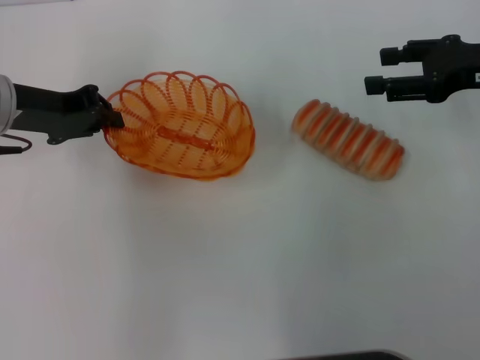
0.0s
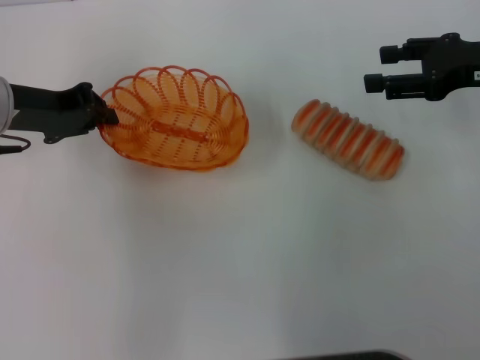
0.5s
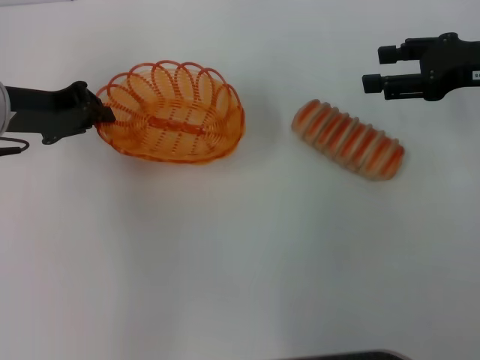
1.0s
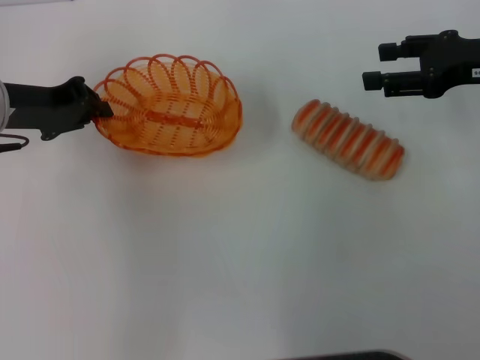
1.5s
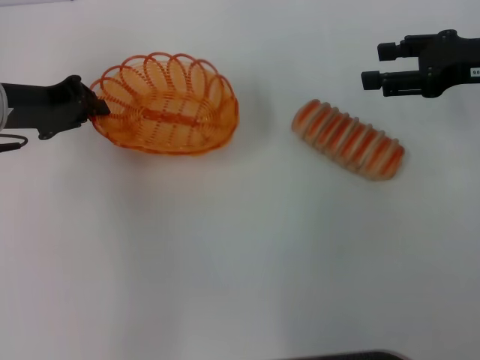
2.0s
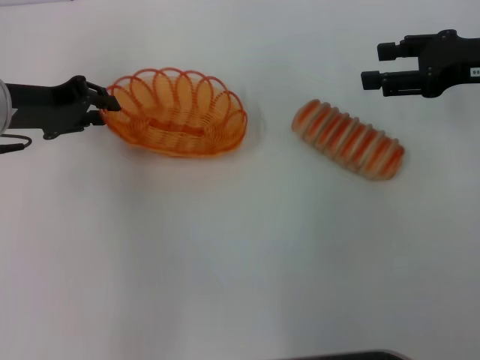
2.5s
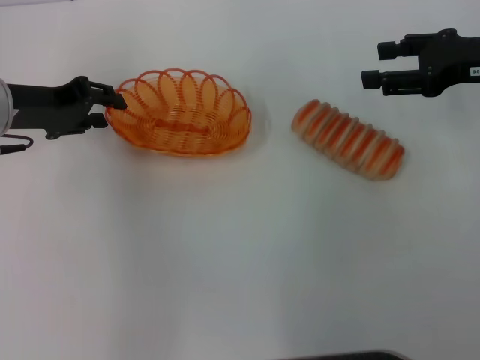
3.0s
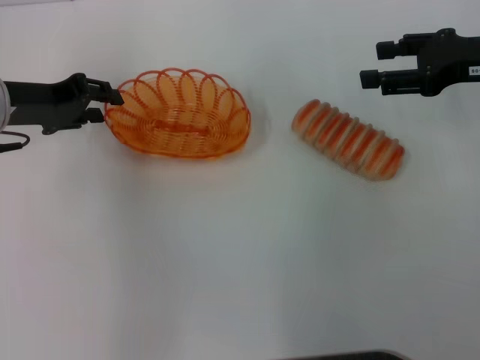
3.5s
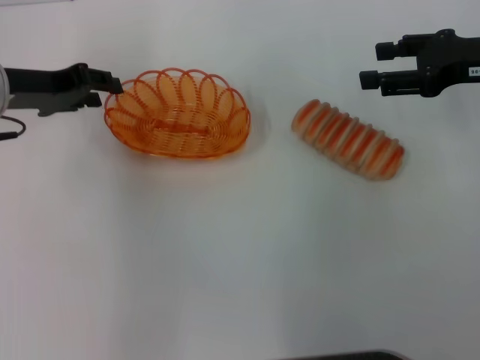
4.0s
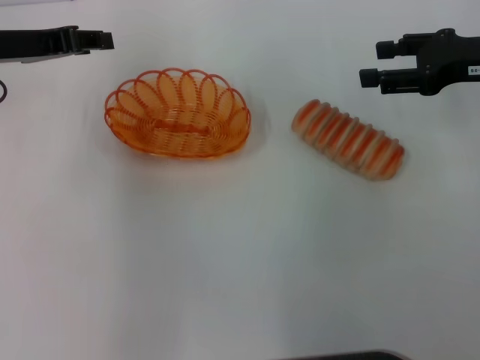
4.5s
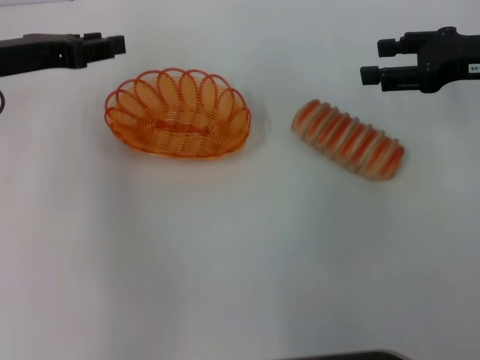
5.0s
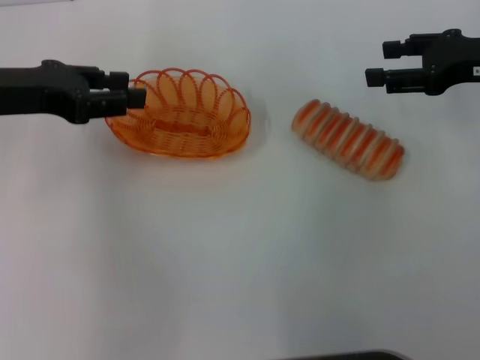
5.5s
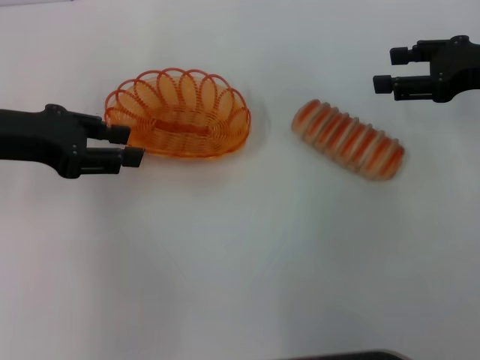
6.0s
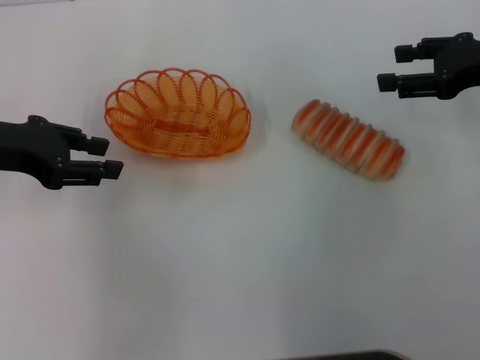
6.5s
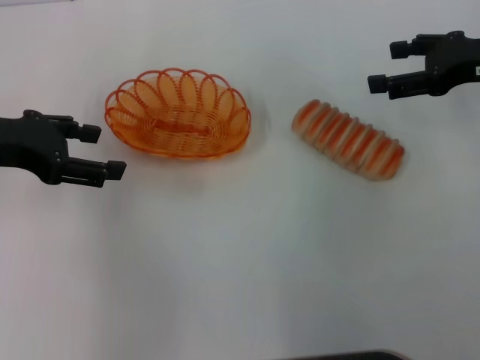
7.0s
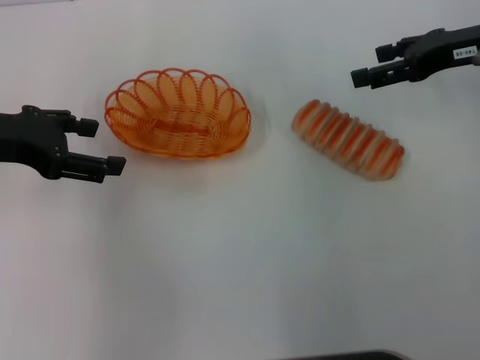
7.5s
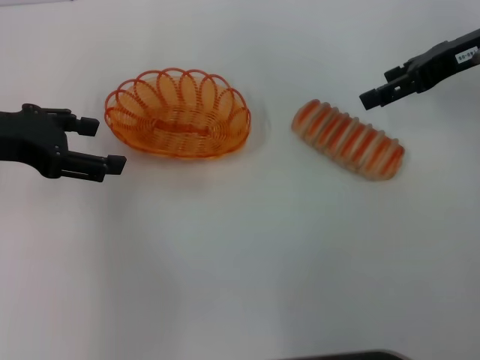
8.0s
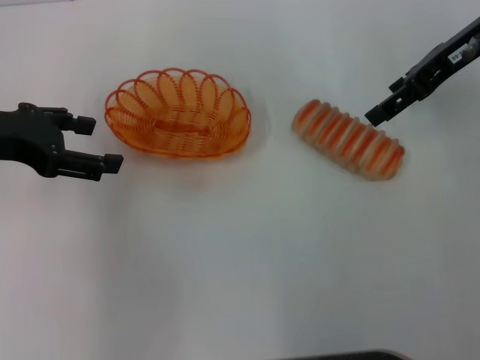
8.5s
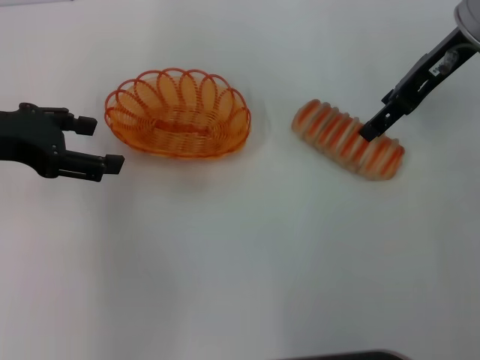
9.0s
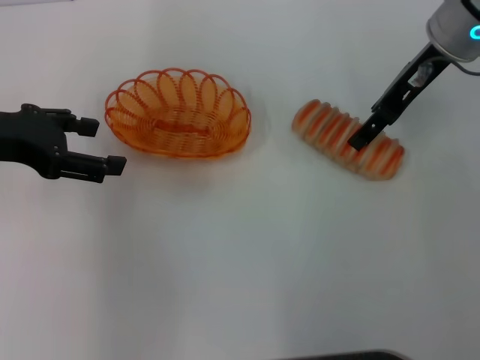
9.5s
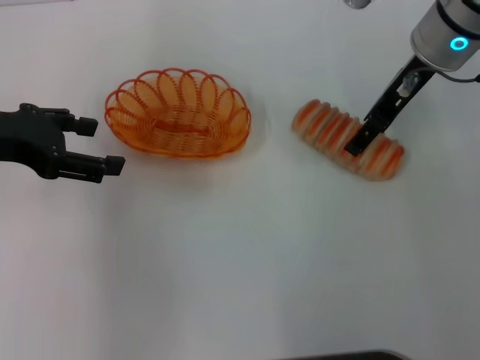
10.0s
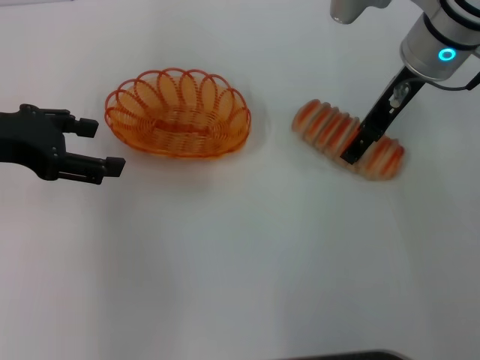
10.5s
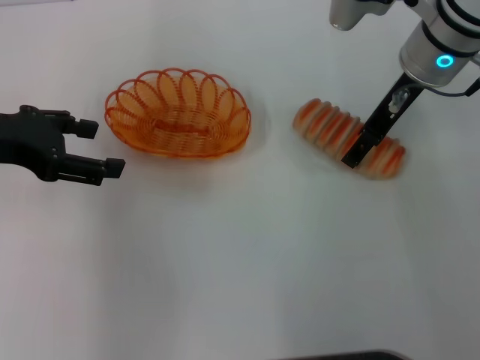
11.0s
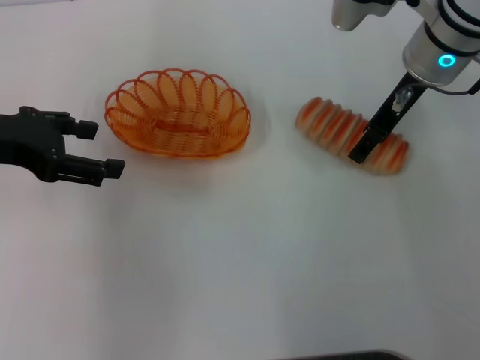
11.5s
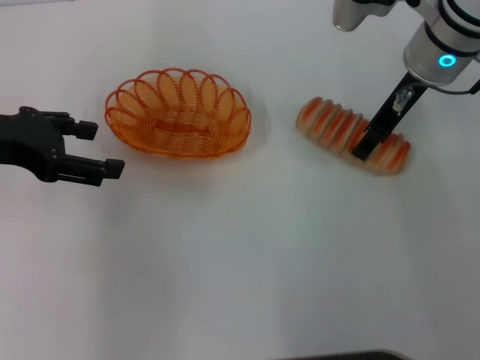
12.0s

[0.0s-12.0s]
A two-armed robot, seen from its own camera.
Step, 0.0s to 4.0s: Place the basket in the center of view with the left gripper.
0.0s to 2.0s: The grippers move only a little.
2.0s to 4.0s: The left gripper opens its fingers.
4.0s to 6.0s: The left gripper heads backward, covering approximately 5 cm.
6.0s to 8.0s: The right gripper moves some 5 cm, and opens, while the left gripper opens up.
8.0s to 10.0s: The right gripper goes roughly 10 cm to the left.
10.0s to 12.0s: The right gripper closes its fingers.

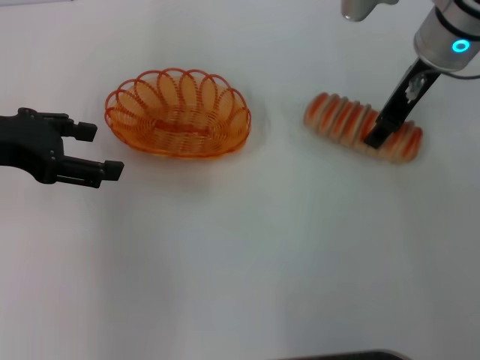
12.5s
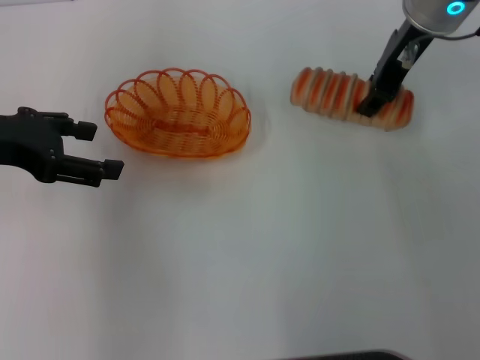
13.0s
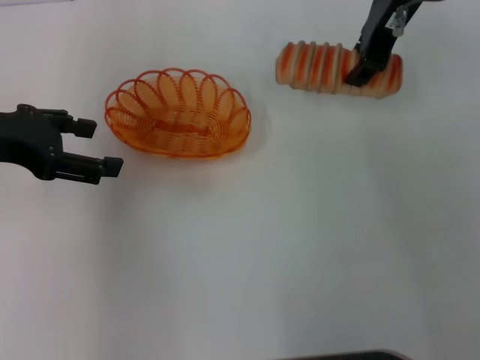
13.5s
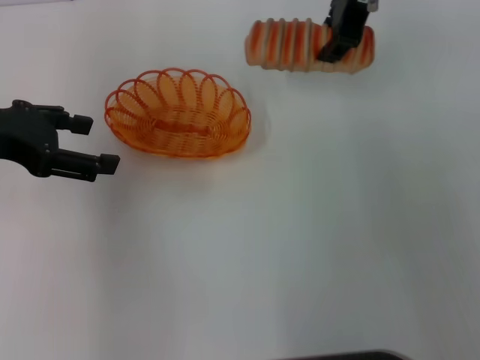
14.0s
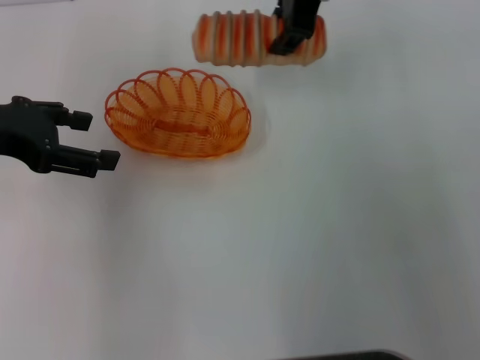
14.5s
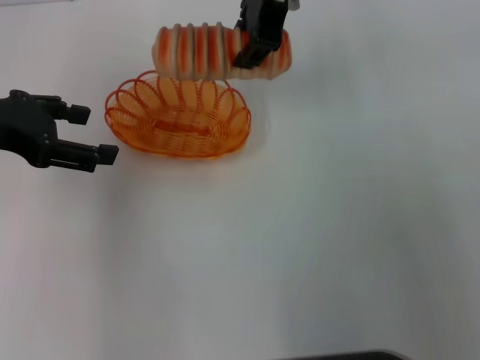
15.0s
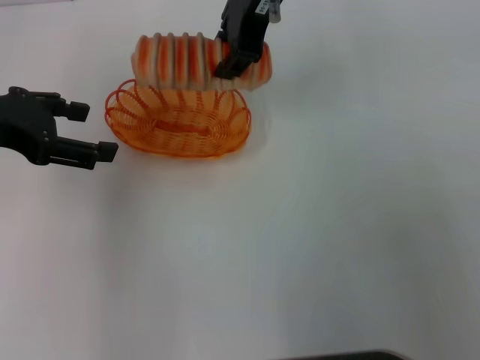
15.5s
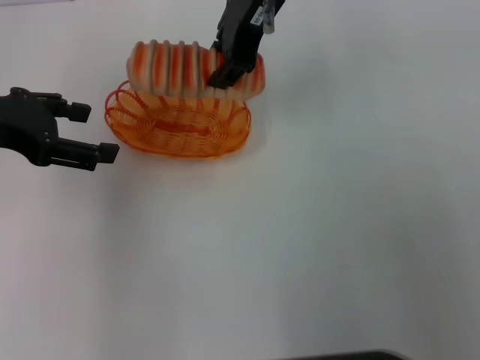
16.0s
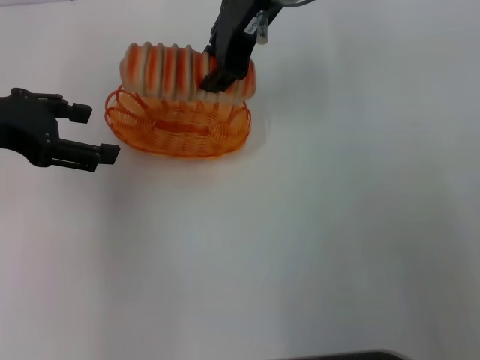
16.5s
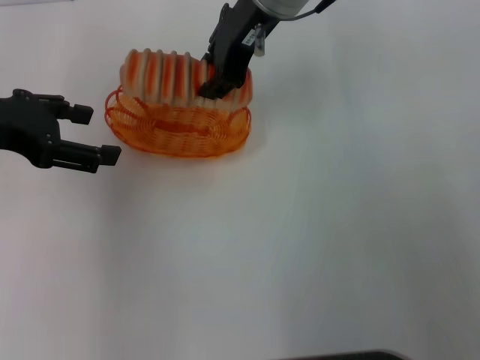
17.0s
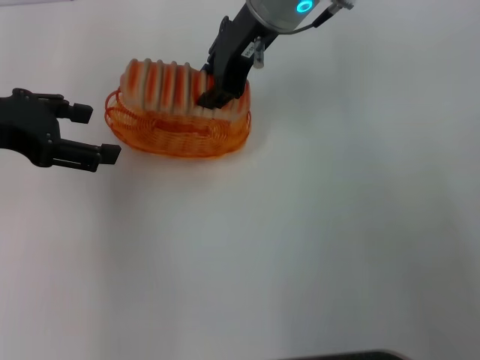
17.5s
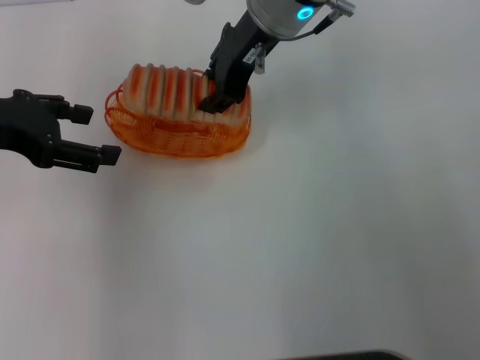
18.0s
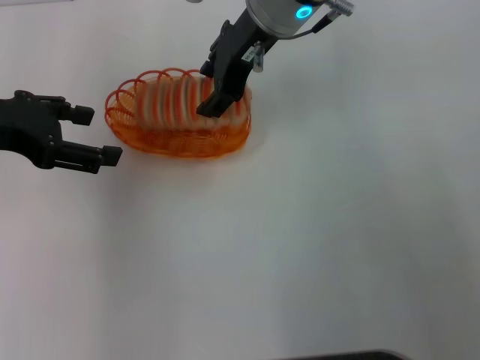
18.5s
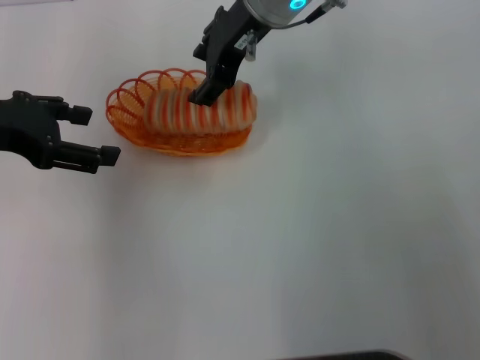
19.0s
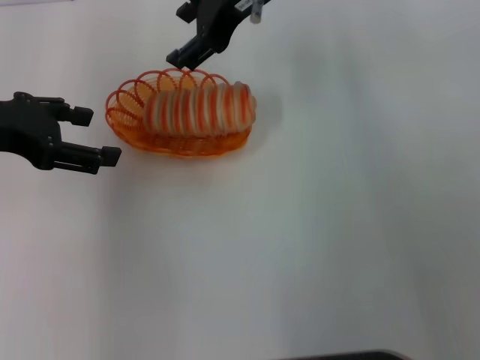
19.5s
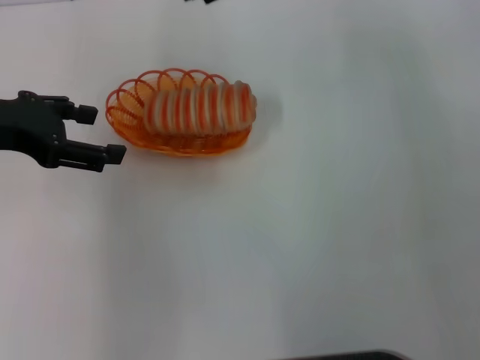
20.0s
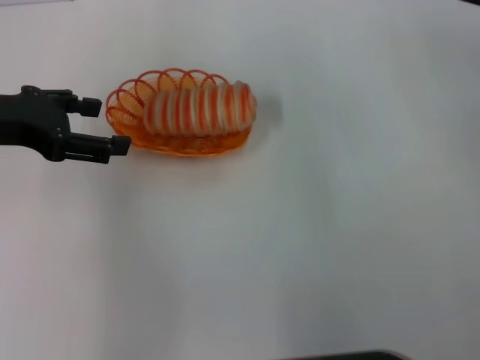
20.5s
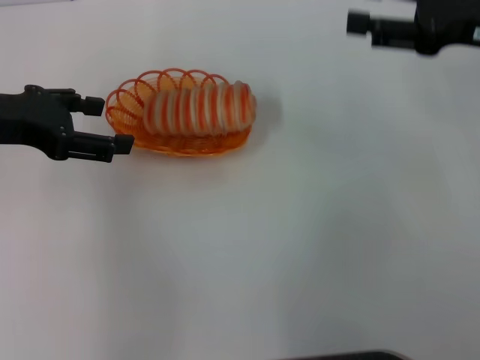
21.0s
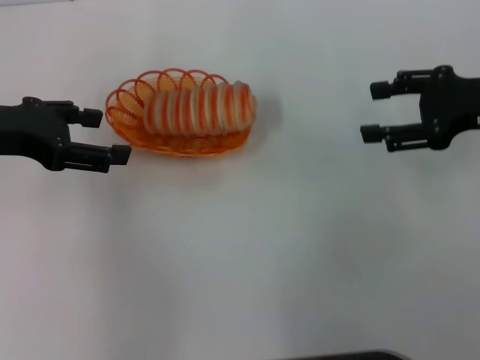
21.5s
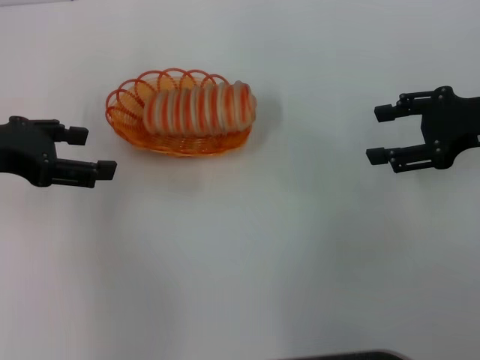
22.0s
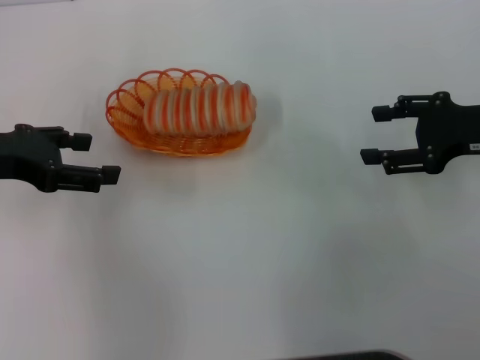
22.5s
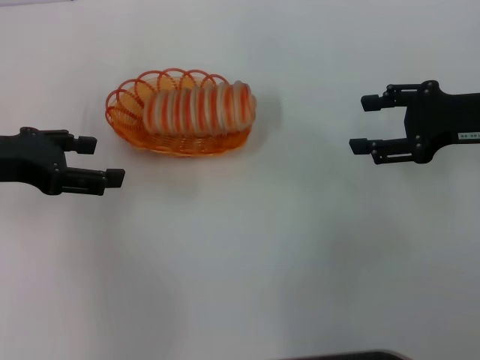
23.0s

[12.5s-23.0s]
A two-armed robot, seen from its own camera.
Step, 13.0s to 19.5s: Place the long bread into the basket with the right gripper.
12.5s to 14.5s: The right gripper is displaced to the left and upward by about 15 cm.
14.5s to 16.5s: The grippers move only a little.
16.5s to 19.0s: The right gripper opens.
19.0s to 21.0s: The right gripper moves to the right, some 25 cm.
21.0s to 23.0s: The right gripper travels downward by approximately 5 cm.
